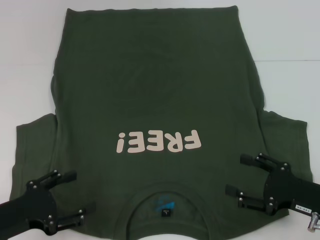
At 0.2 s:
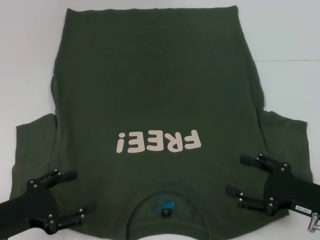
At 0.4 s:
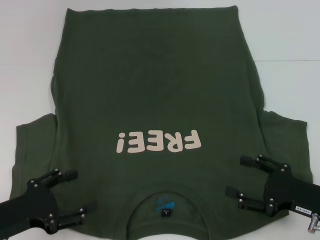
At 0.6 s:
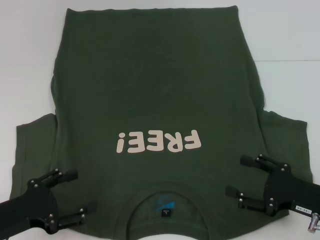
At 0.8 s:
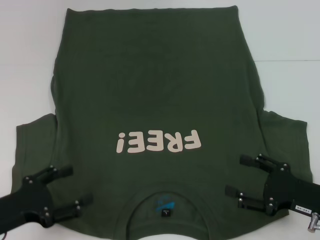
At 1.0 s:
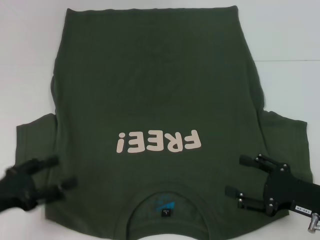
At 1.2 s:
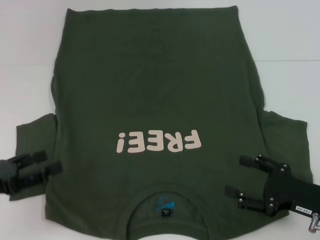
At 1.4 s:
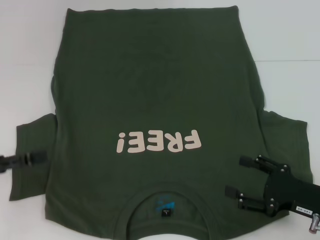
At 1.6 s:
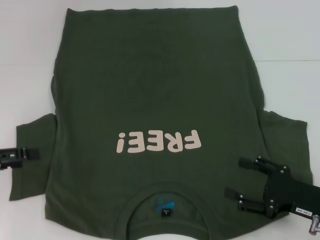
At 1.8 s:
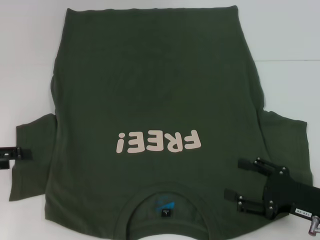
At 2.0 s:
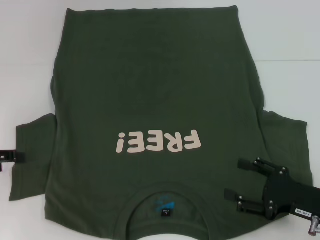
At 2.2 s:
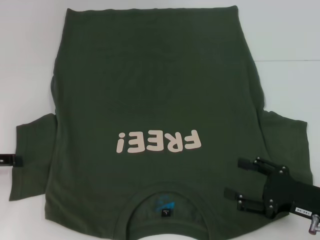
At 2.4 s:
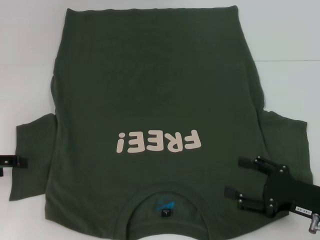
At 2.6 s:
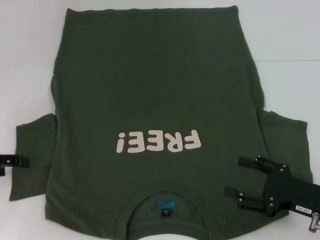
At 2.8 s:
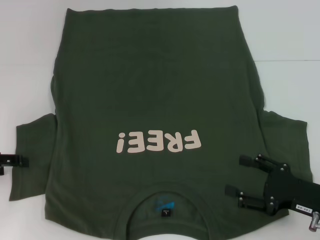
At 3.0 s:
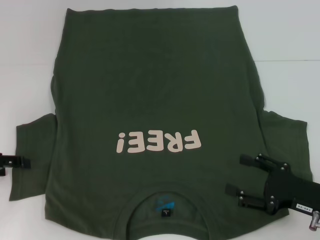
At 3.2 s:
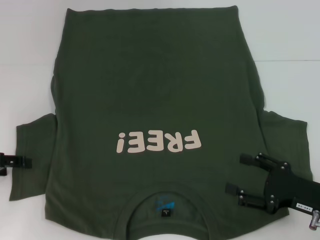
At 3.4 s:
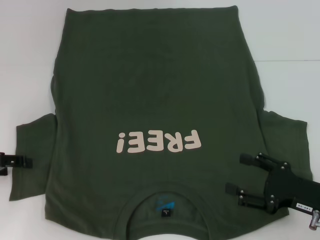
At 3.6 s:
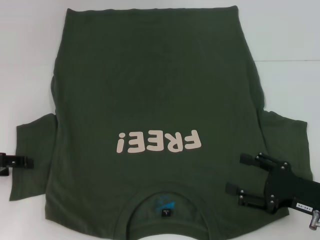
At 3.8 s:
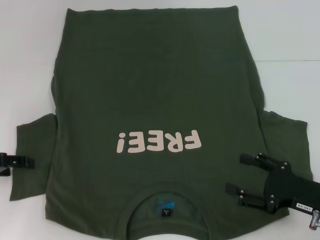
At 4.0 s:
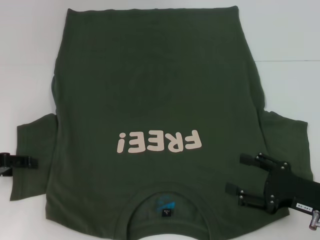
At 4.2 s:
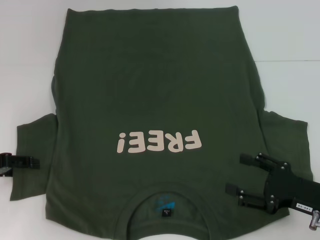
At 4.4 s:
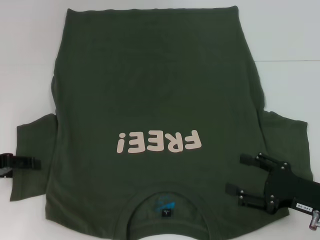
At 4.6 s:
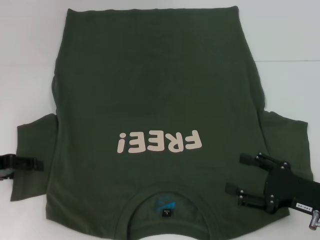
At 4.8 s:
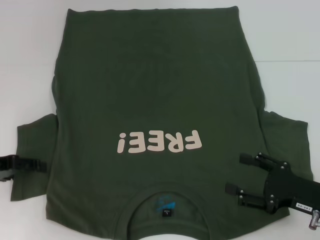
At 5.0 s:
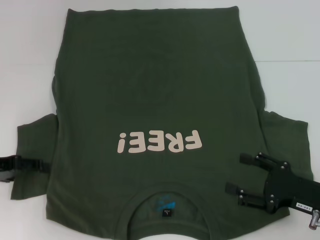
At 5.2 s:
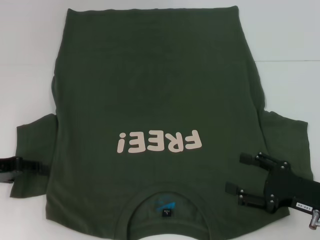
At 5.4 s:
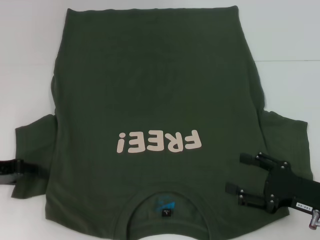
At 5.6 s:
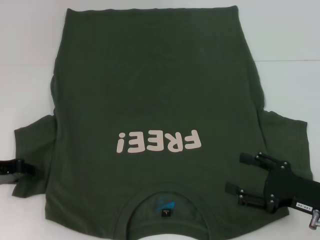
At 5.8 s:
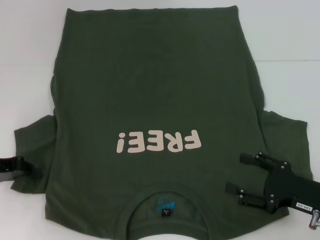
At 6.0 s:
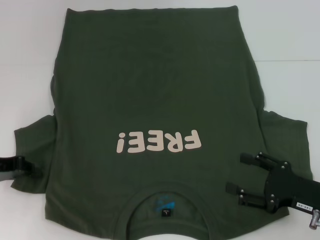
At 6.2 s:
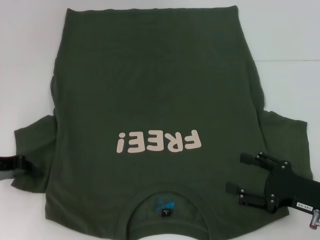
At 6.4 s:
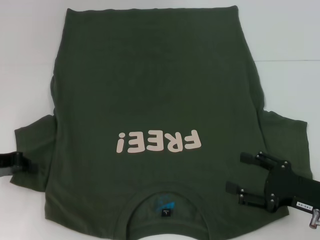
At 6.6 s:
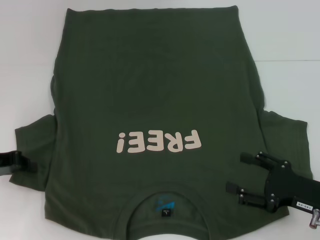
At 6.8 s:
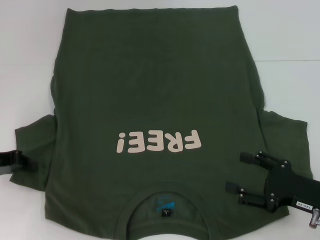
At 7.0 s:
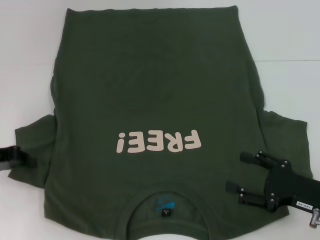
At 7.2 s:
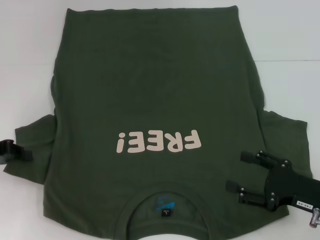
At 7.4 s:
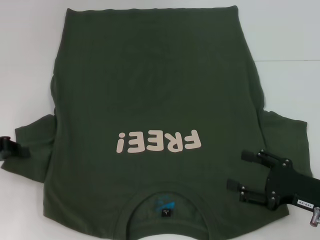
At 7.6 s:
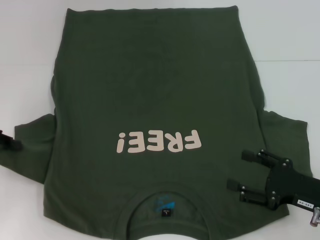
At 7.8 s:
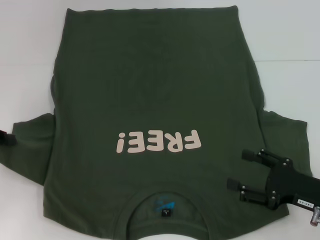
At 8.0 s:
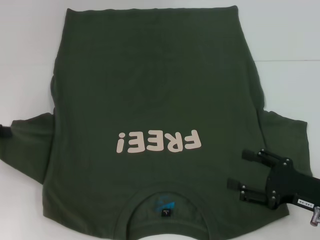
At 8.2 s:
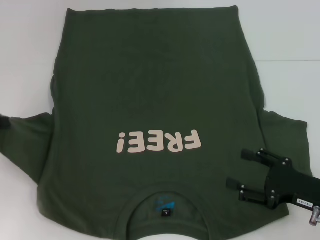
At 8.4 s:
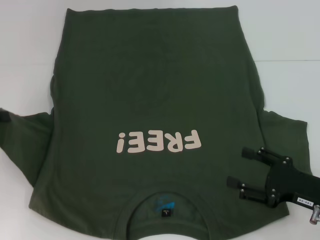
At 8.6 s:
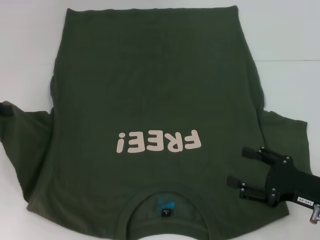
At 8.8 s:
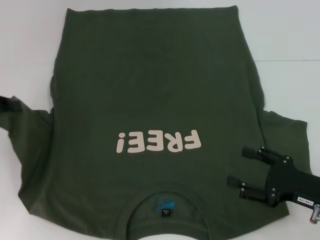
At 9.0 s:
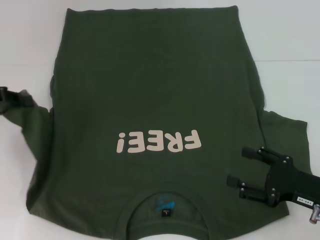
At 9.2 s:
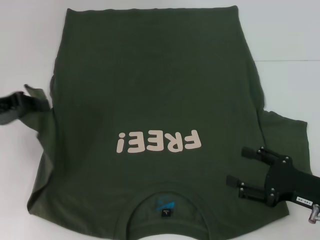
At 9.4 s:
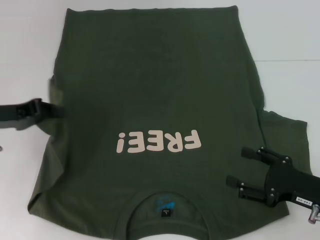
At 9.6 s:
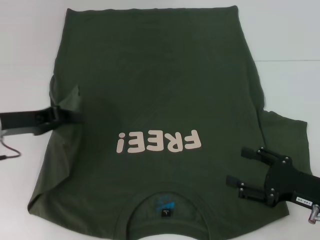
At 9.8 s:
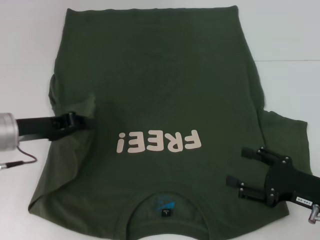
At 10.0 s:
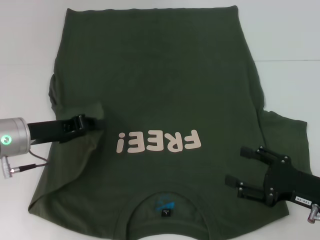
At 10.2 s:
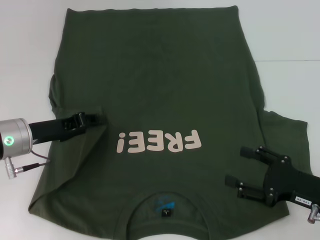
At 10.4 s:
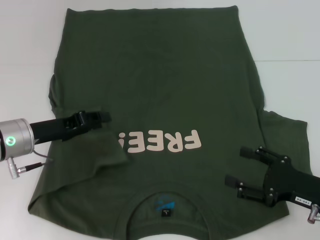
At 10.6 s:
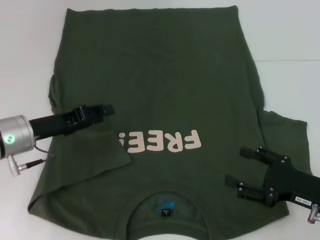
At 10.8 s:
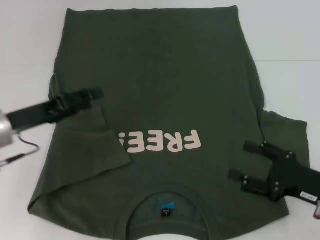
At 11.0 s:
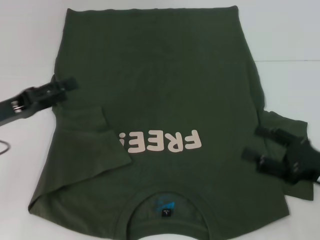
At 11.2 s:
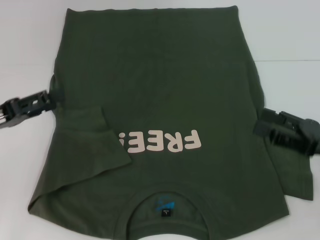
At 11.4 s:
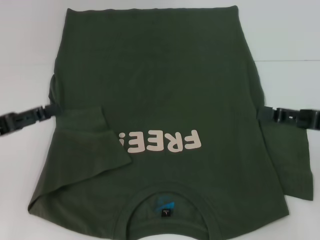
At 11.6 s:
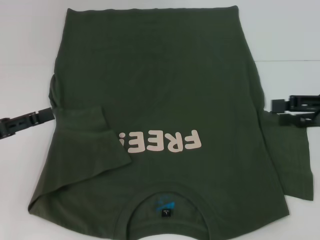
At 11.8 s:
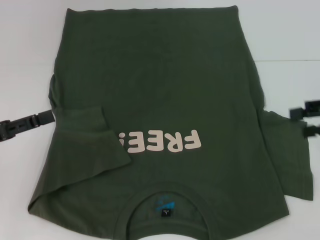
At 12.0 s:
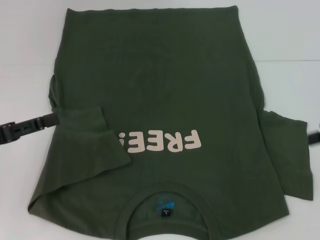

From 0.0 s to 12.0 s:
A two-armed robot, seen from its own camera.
Step, from 0.0 s to 10.6 s: Fold the bottom left sleeve with your left hand.
From 0.0 s to 1.6 s: The left gripper is displaced to the left, upward and forward by roughly 15 cm.
From 3.0 s to 4.4 s: Neither gripper changes place.
From 4.4 s to 6.0 s: The left gripper closes.
From 6.0 s to 7.6 s: The grippers stay close to where they were, moving slightly.
From 7.6 s to 9.0 s: There are only small adjustments of the grippers.
From 9.0 s to 10.4 s: The left gripper shifts about 10 cm to the right and downward.
From 10.4 s to 12.0 s: The left gripper shifts some 10 cm to the left and backward, and opens up. The right gripper heads upward, to the right and forward, covering about 20 cm.

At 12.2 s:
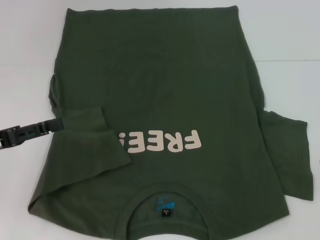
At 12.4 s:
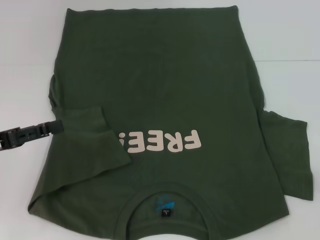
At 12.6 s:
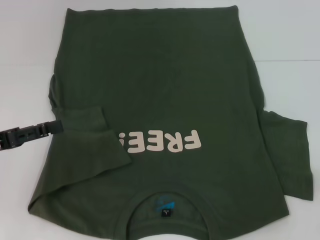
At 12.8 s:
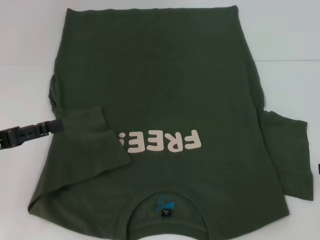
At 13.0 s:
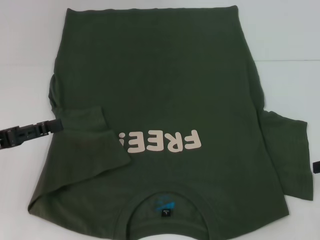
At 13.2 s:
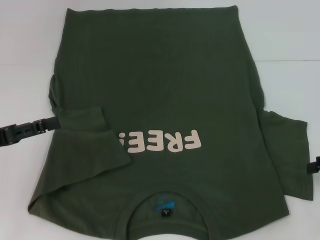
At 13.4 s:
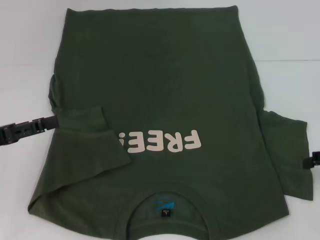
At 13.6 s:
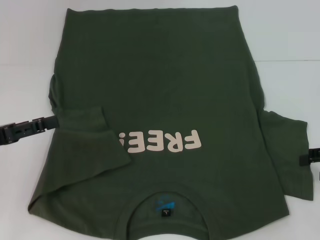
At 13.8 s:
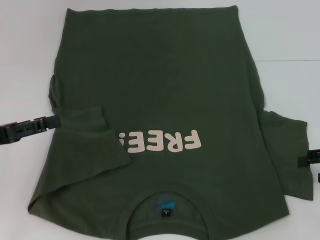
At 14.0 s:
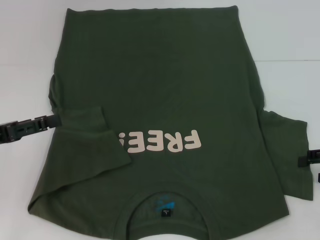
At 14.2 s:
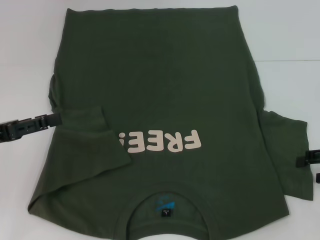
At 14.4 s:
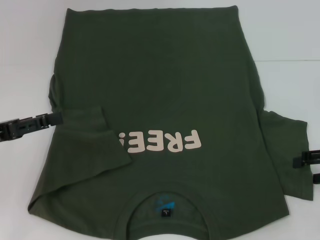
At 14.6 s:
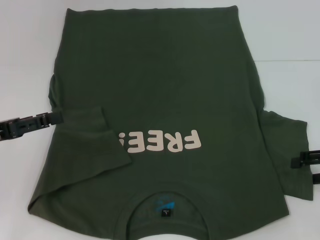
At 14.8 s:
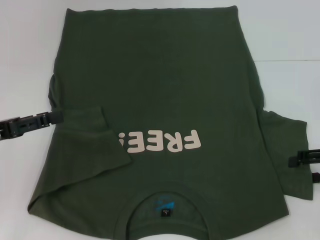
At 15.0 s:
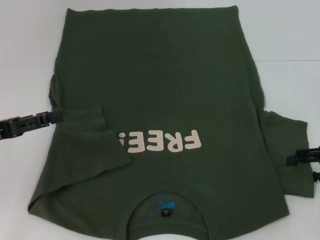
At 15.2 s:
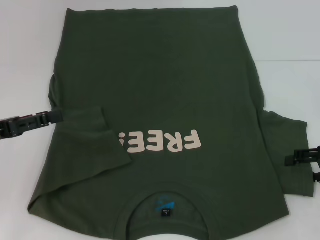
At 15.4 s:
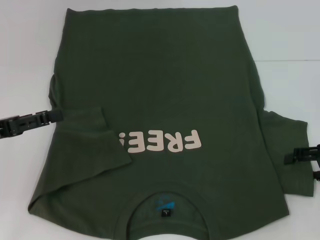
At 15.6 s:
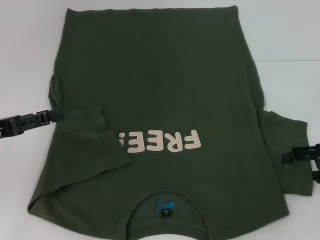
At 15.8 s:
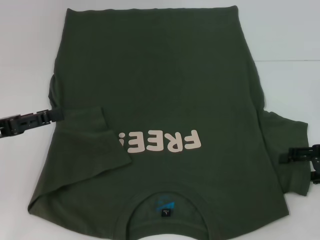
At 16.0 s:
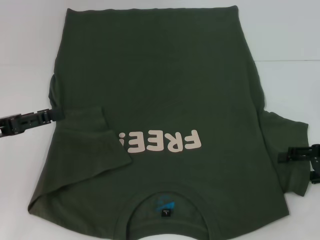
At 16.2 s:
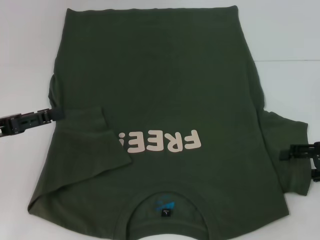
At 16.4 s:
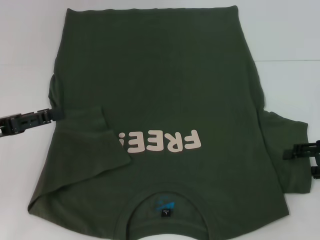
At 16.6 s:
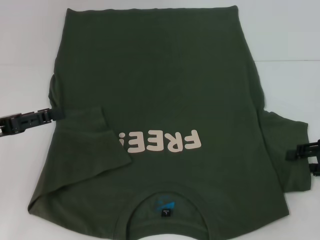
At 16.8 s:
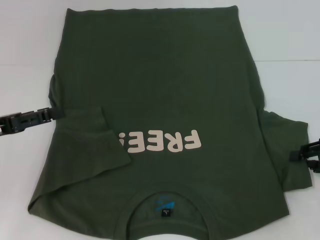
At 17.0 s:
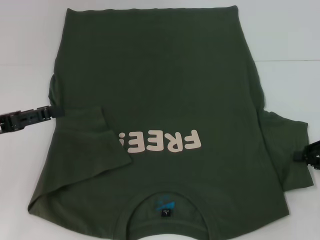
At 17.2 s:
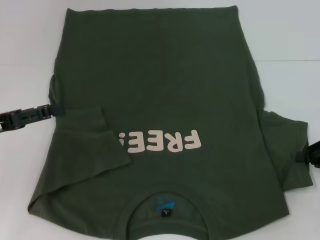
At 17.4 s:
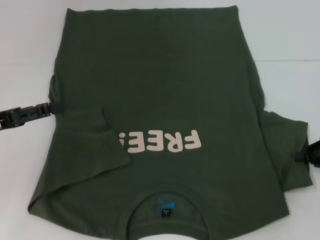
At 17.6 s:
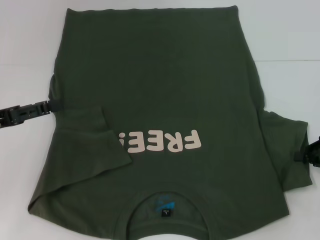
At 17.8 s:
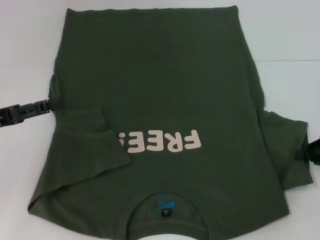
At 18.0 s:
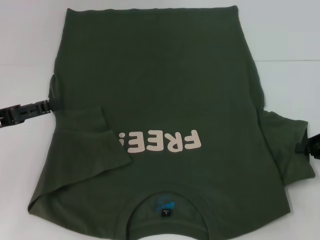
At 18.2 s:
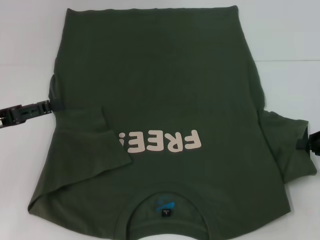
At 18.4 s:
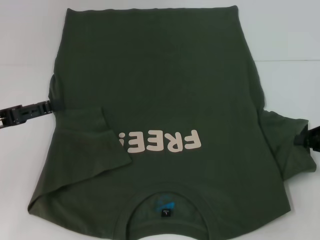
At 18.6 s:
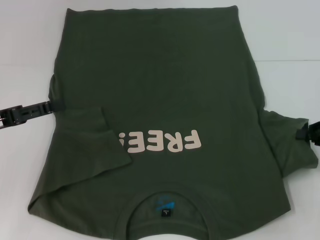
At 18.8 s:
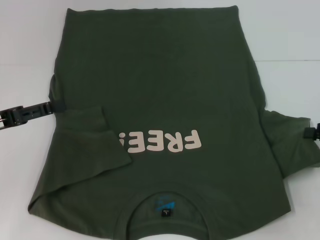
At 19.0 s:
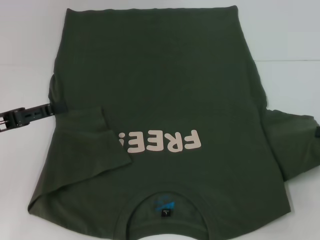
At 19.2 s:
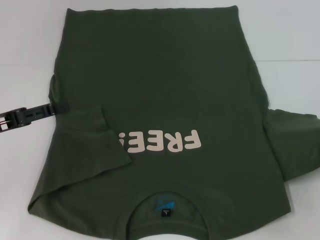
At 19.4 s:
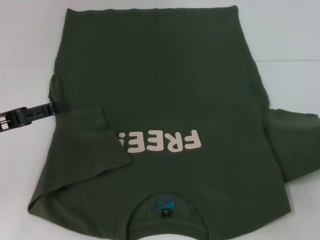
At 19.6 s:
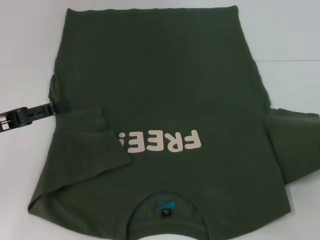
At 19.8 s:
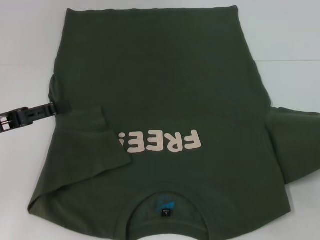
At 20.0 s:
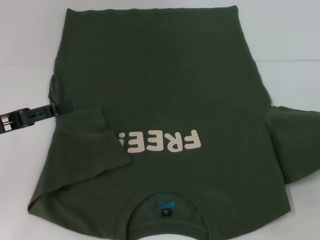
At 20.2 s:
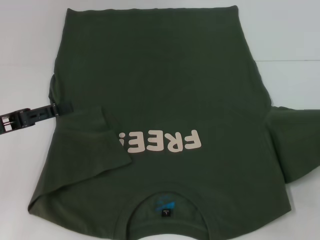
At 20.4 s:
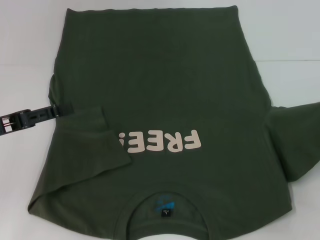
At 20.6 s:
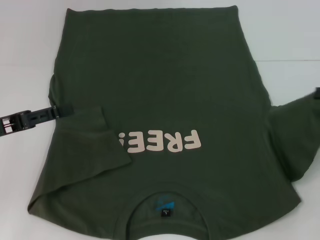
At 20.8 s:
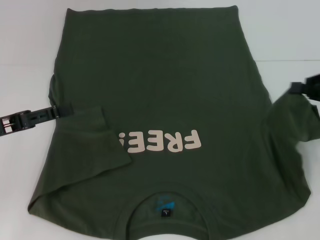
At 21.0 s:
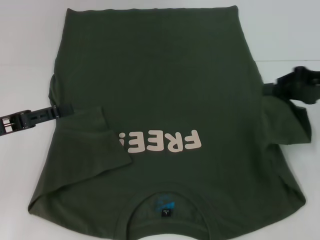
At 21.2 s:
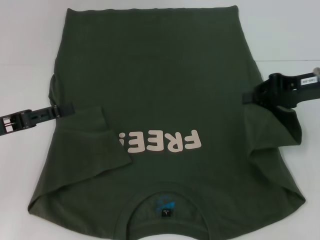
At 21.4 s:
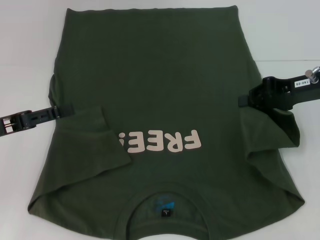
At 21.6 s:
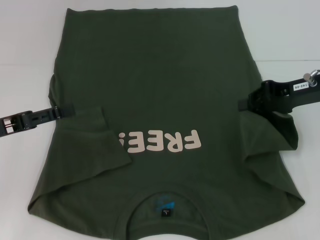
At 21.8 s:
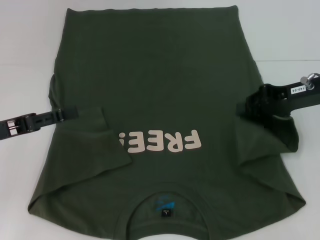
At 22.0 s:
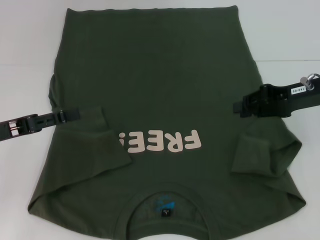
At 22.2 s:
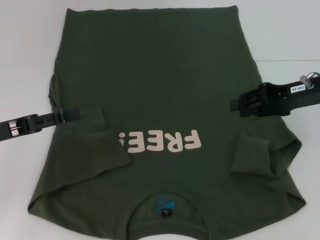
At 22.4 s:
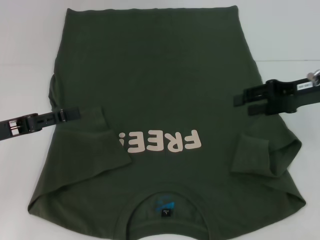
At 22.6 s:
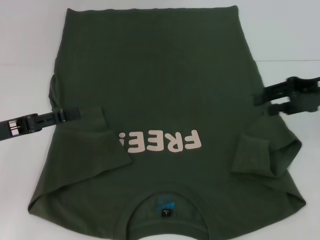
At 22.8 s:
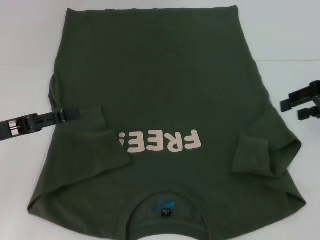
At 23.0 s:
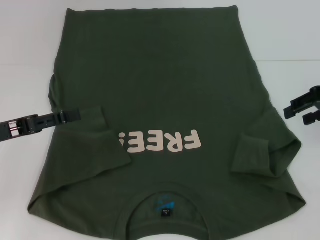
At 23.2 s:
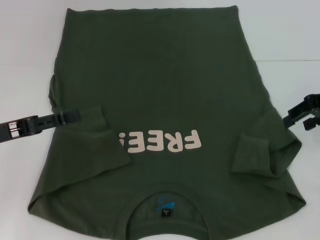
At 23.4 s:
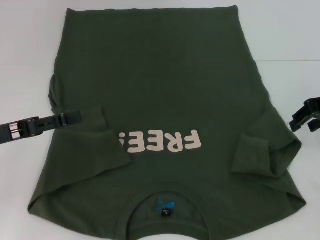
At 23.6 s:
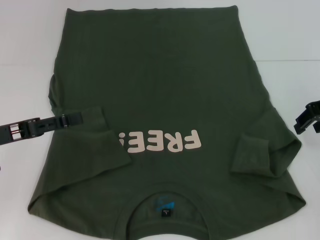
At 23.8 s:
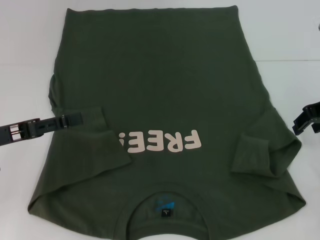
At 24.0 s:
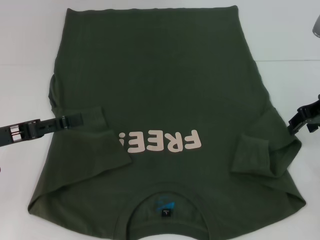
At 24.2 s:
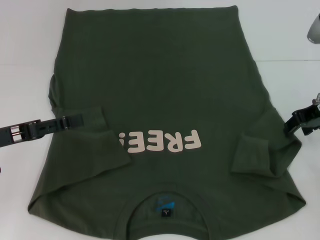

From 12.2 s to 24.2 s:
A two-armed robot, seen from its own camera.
From 13.8 s to 16.6 s: The grippers make only small movements.
From 16.6 s to 18.2 s: The right gripper closes its fingers.
From 18.2 s to 19.8 s: The right gripper shifts roughly 5 cm to the right.
From 19.8 s to 21.2 s: The right gripper is displaced to the left and forward by about 15 cm.
From 21.2 s to 22.6 s: The right gripper opens.
